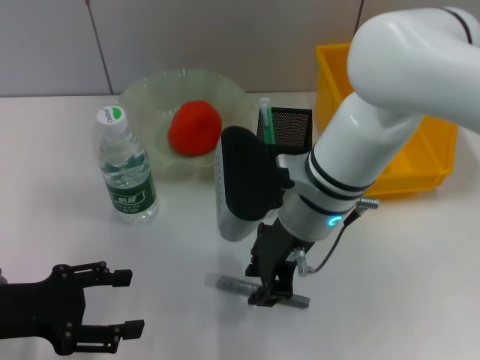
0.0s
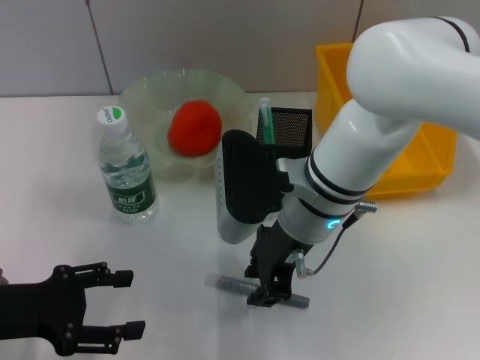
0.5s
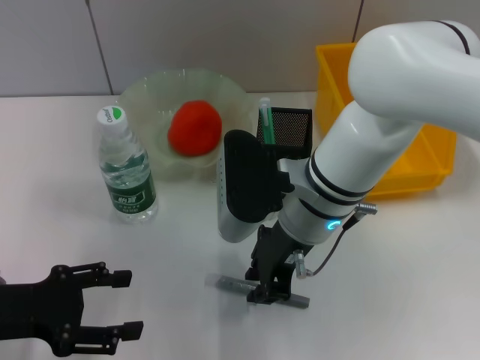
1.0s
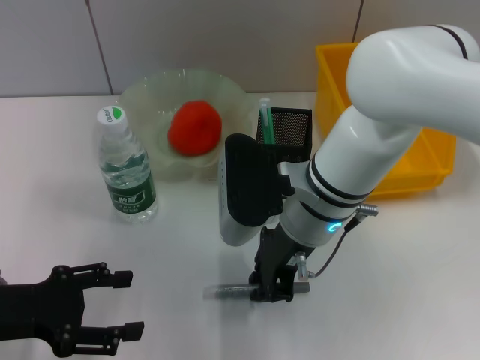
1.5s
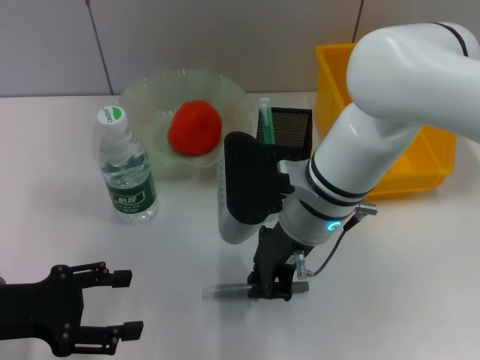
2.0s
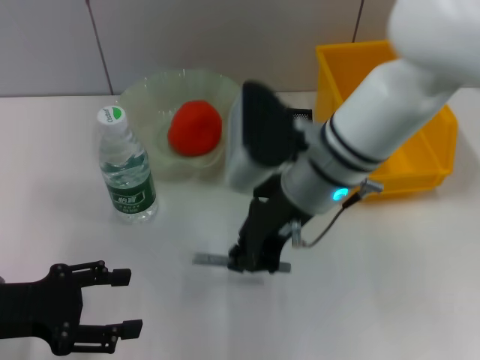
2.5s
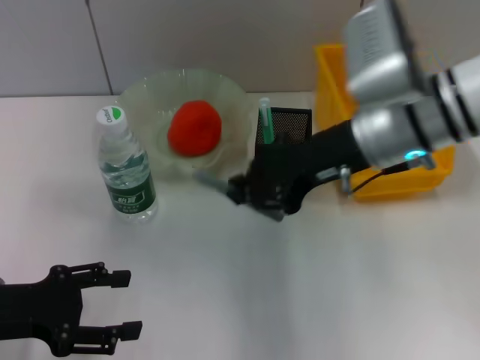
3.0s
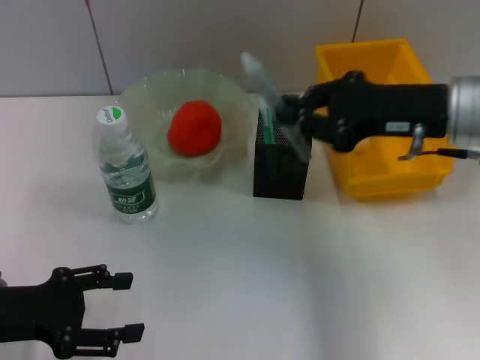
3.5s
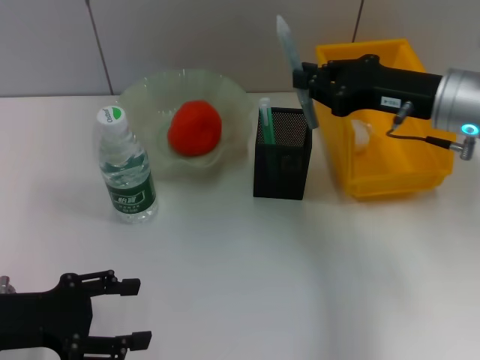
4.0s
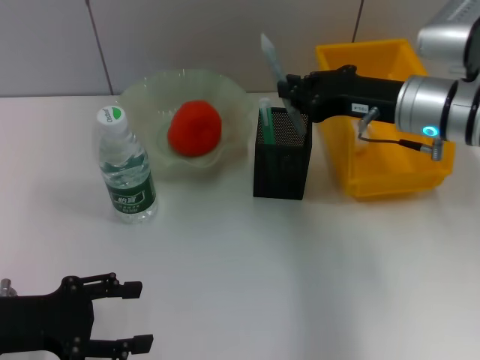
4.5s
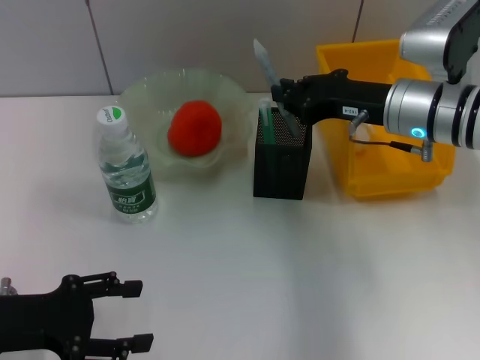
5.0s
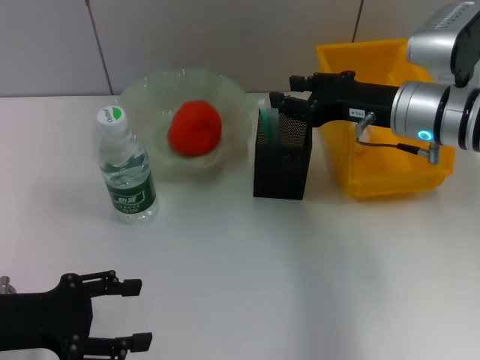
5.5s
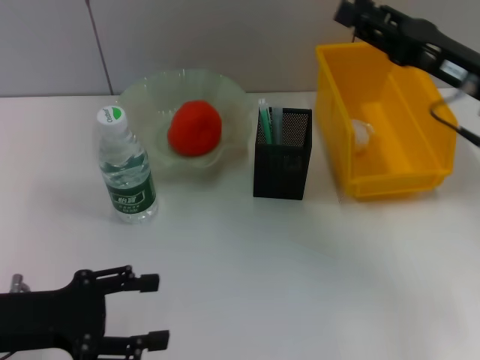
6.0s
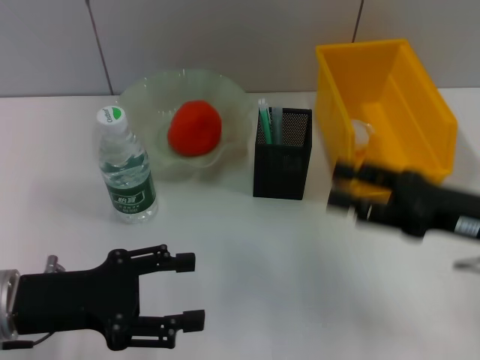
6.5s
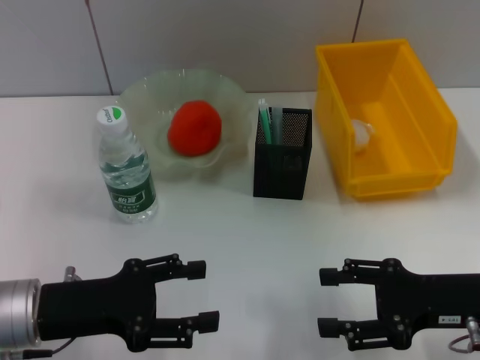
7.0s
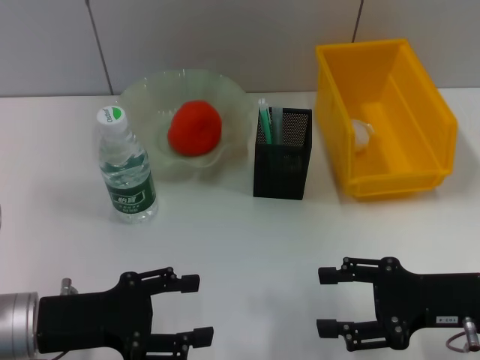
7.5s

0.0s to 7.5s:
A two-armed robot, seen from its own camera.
Step, 2.0s to 5.5s: Place the gray glue into the pen holder with the right hand.
0.0s to 2.0s: The right gripper closes its fingers.
2.0s to 4.0s: The right gripper shifts roughly 15 cm to the right.
4.0s to 5.5s: There are only small adjustments of the grippers.
5.5s to 7.5s: The left gripper shifts by roughly 5 cm; the right gripper travels backward, downward and to the right by about 20 cm, and opens its fingers.
